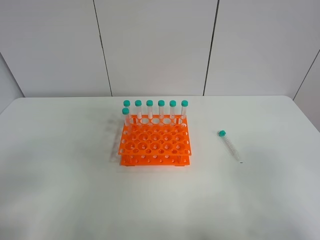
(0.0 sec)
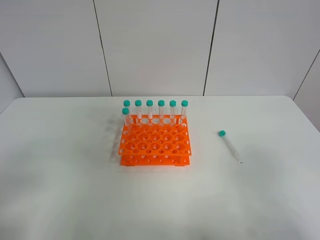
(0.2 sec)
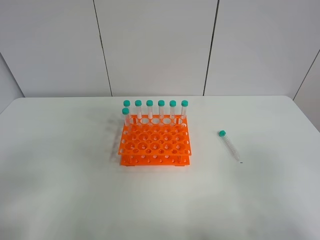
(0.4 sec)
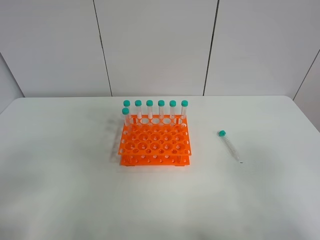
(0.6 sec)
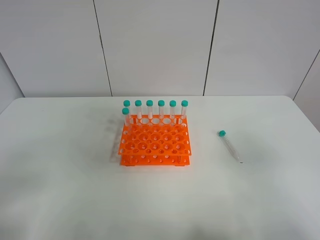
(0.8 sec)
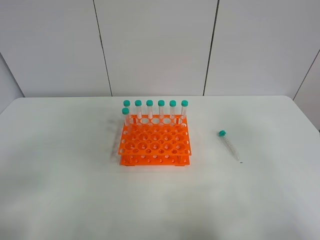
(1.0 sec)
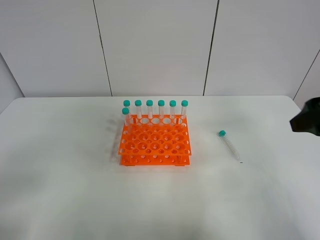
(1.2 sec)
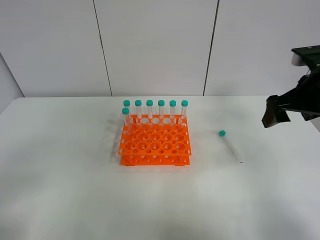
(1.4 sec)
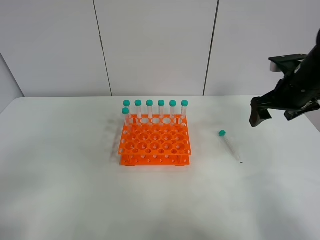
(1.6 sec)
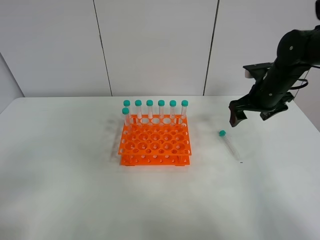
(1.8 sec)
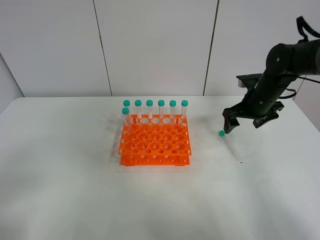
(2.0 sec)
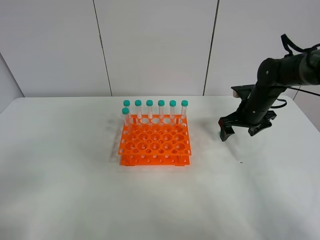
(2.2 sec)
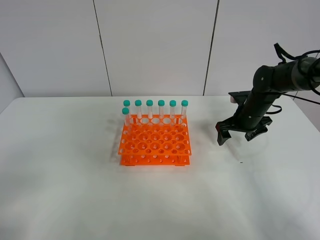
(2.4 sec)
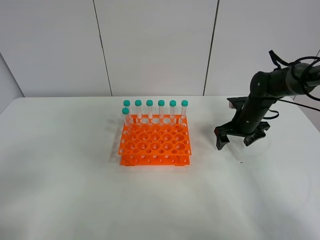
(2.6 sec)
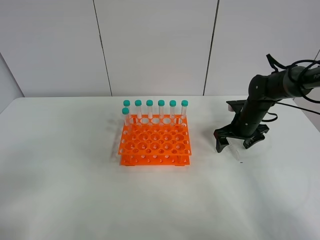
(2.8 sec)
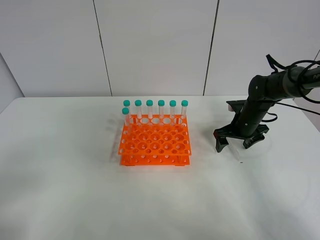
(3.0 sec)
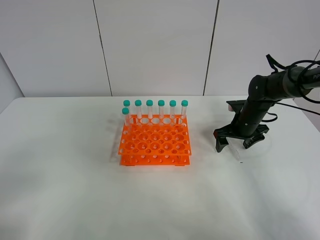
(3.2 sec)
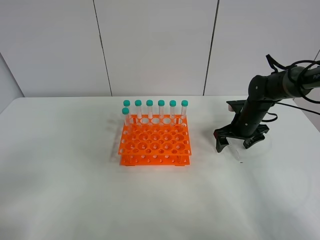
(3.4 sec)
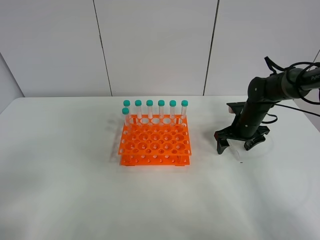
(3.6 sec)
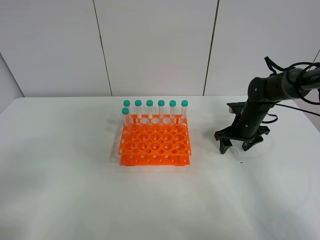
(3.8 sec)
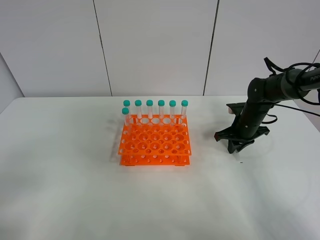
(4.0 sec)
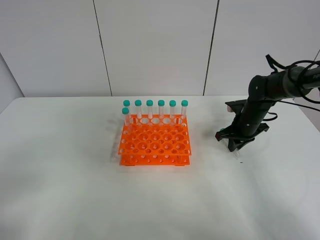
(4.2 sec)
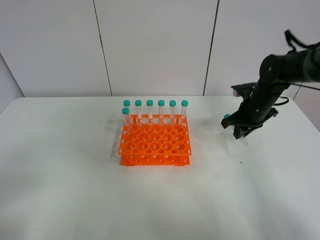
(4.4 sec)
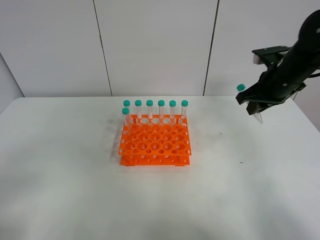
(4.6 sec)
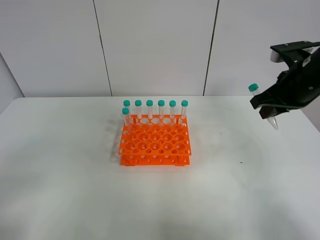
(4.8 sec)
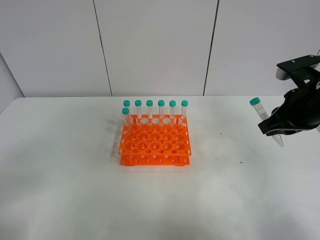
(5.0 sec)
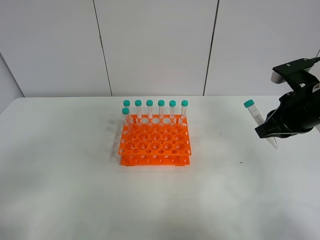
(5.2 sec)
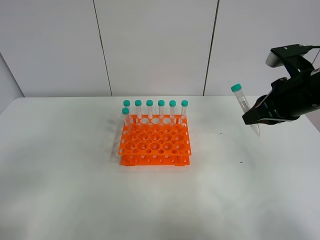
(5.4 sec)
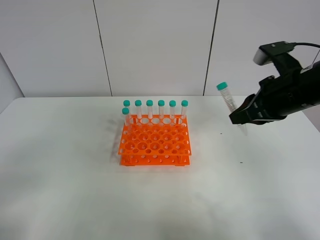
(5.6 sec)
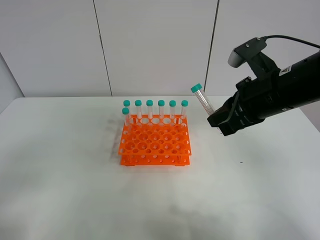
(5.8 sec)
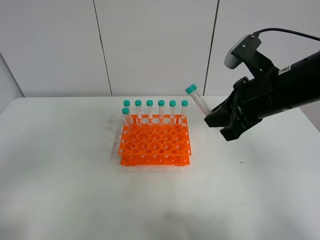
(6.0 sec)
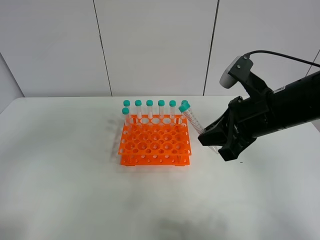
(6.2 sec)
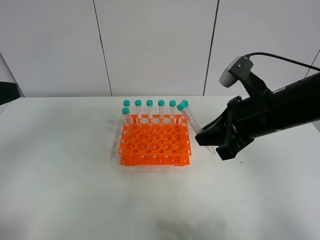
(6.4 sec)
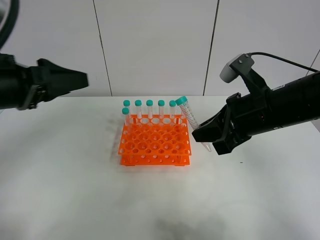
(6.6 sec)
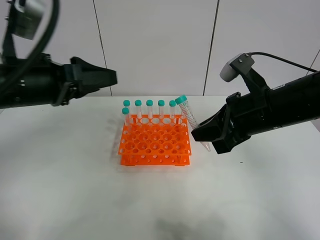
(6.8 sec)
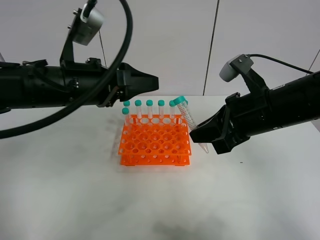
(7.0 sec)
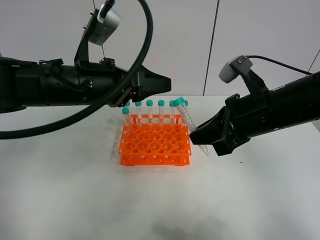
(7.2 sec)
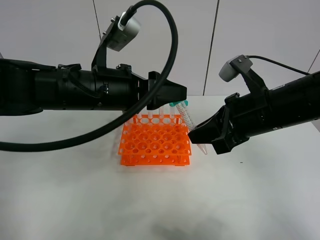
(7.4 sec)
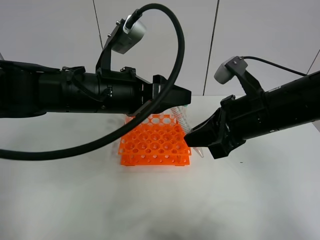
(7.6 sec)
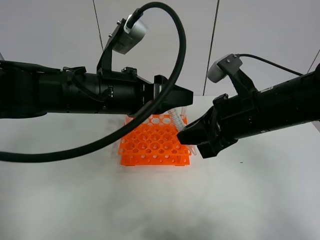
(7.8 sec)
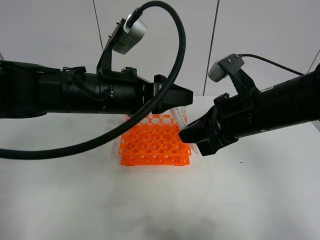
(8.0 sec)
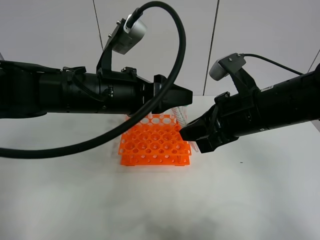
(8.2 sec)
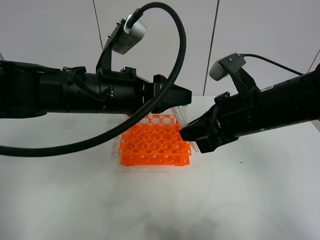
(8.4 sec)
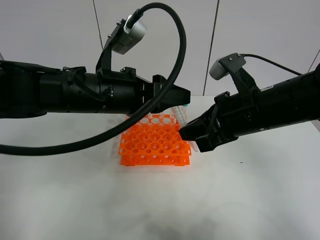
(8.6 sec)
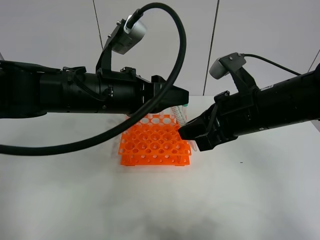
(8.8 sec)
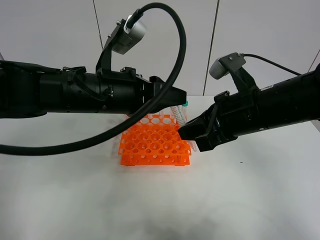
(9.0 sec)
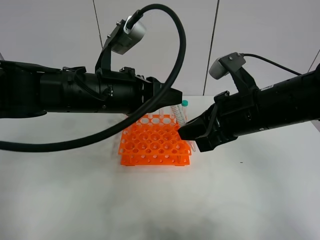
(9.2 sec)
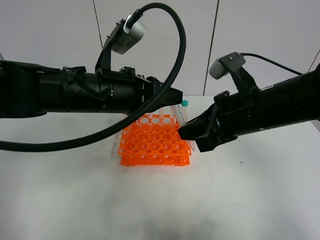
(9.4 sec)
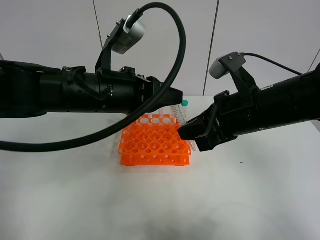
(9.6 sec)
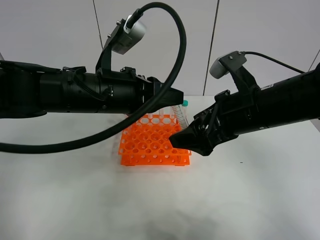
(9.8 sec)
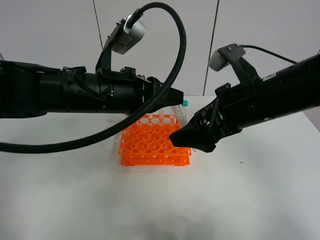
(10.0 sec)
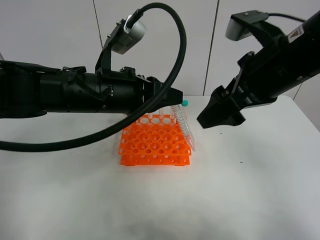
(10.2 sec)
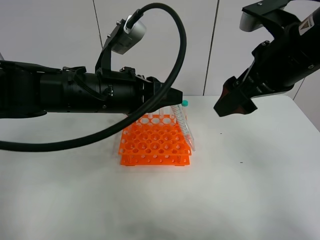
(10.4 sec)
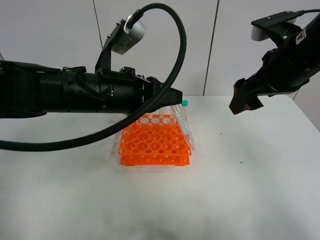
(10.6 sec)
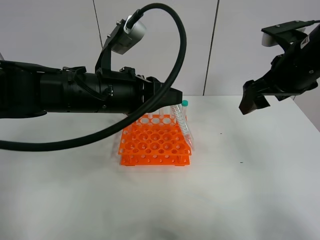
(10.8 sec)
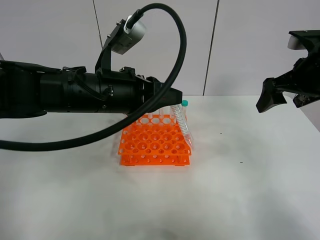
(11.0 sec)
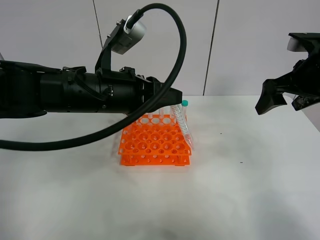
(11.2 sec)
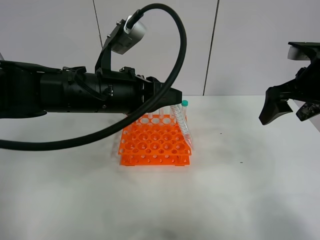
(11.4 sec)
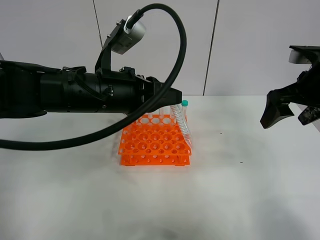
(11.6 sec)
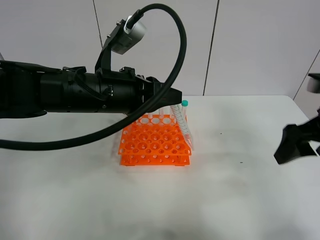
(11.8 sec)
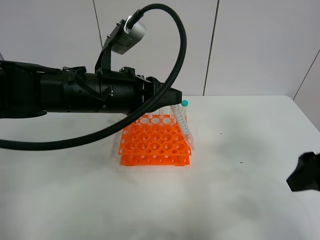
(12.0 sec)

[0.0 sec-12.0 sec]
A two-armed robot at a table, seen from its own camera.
Task of the whole recording: Put the test tube on the table back onto the test tube rack.
Step, 0.0 sec to 4.0 sec: Pick up the test tube with the right gripper.
Step, 4.2 sec to 10.0 sec: Move the test tube from the right gripper to the left gripper.
0.0 sec to 1.6 sec: The right gripper is displaced forward by about 35 cm.
1.6 sec to 3.0 sec: The right gripper is displaced downward and forward by approximately 15 cm.
3.0 sec to 4.4 sec: The right gripper shifts approximately 5 cm upward, and closes.
4.4 sec to 6.0 sec: The right gripper shifts approximately 20 cm backward, upward and to the left.
6.0 sec to 7.6 sec: The left gripper shifts about 30 cm forward and to the right.
7.6 sec to 9.0 sec: The left gripper closes its fingers.
9.0 sec to 10.4 sec: The right gripper heads upward, covering roughly 10 cm, and opens its fingers. Meanwhile the left gripper closes up.
10.4 sec to 12.0 sec: The right gripper travels backward, to the right and downward by approximately 15 cm.

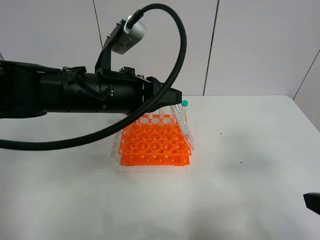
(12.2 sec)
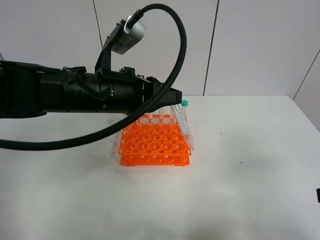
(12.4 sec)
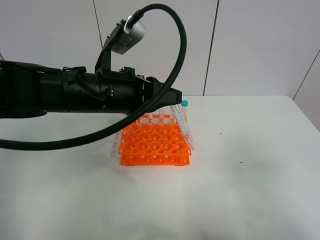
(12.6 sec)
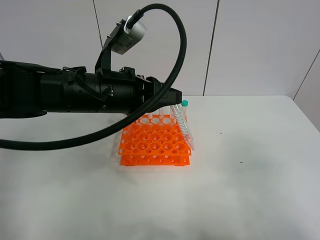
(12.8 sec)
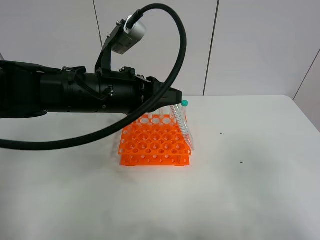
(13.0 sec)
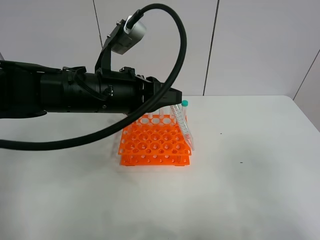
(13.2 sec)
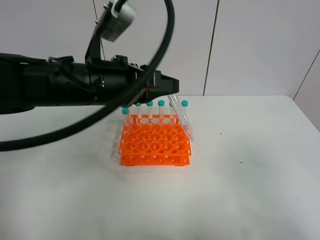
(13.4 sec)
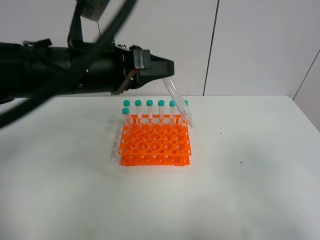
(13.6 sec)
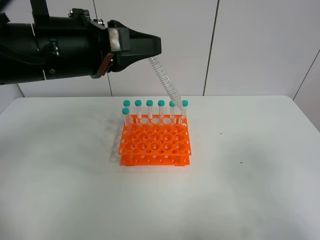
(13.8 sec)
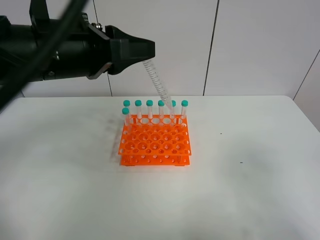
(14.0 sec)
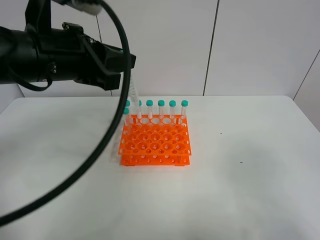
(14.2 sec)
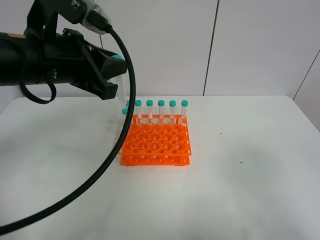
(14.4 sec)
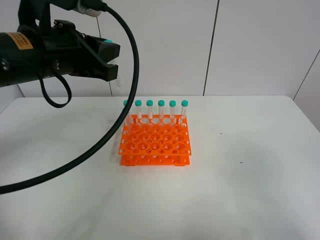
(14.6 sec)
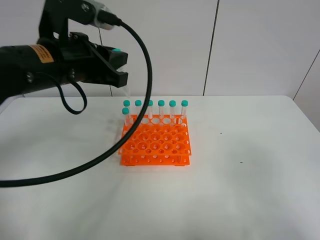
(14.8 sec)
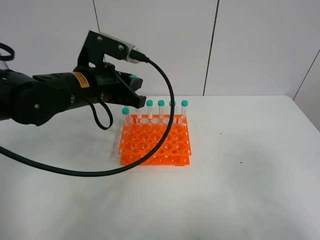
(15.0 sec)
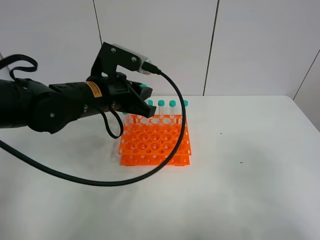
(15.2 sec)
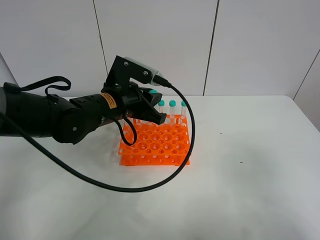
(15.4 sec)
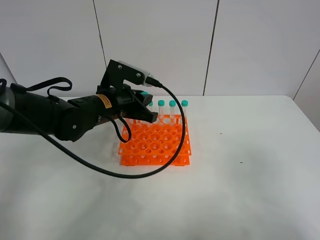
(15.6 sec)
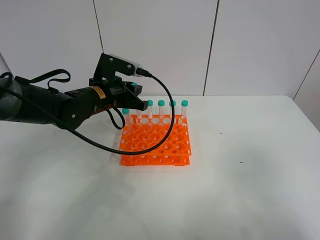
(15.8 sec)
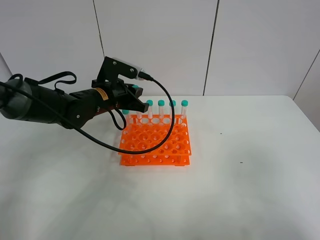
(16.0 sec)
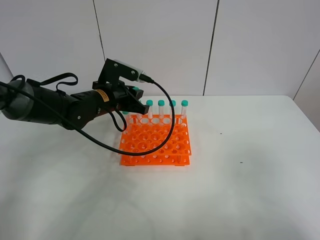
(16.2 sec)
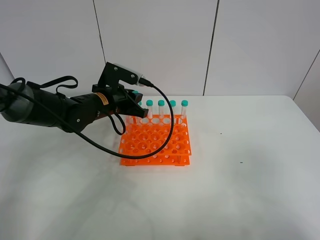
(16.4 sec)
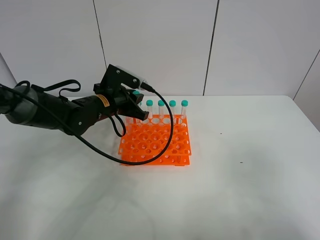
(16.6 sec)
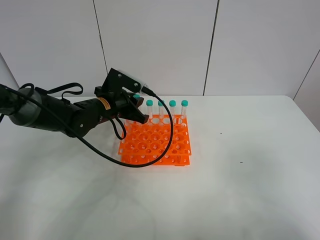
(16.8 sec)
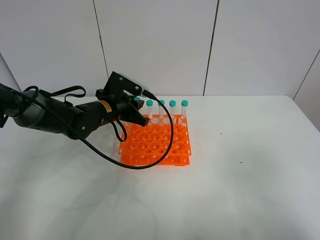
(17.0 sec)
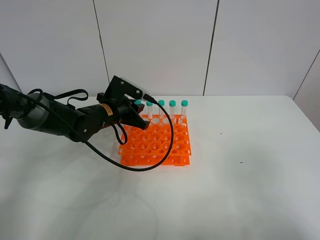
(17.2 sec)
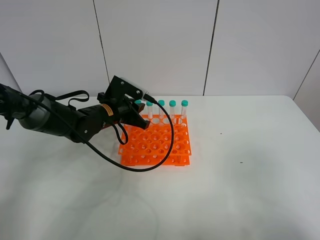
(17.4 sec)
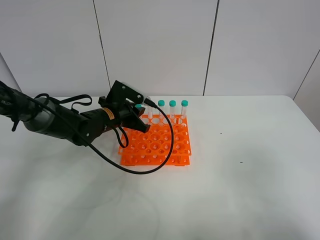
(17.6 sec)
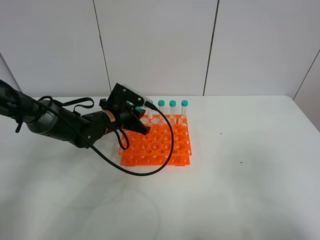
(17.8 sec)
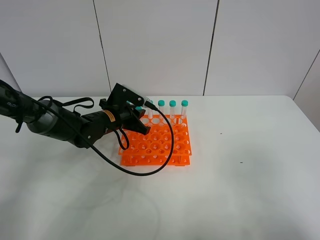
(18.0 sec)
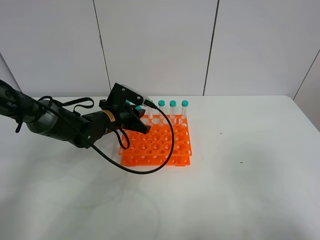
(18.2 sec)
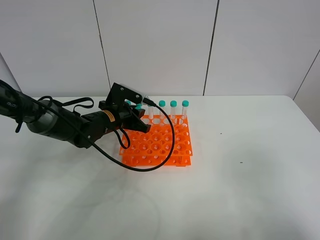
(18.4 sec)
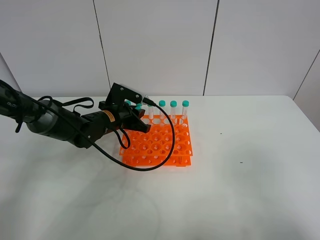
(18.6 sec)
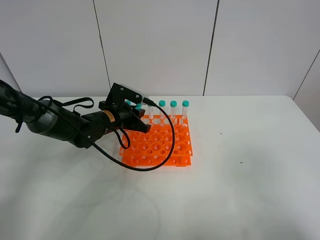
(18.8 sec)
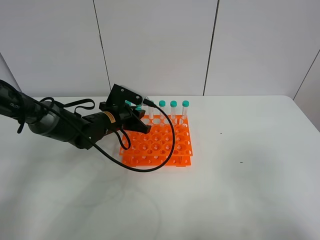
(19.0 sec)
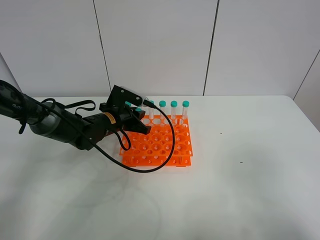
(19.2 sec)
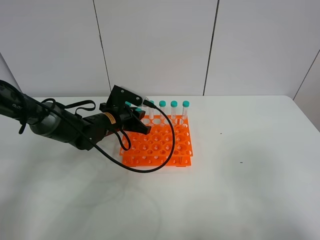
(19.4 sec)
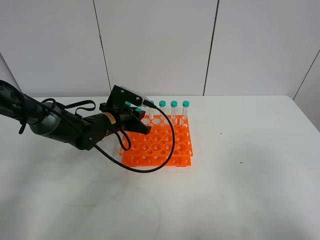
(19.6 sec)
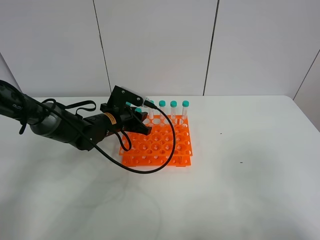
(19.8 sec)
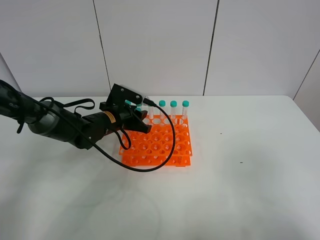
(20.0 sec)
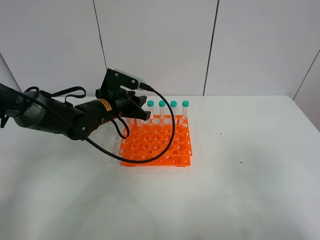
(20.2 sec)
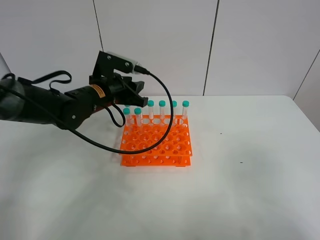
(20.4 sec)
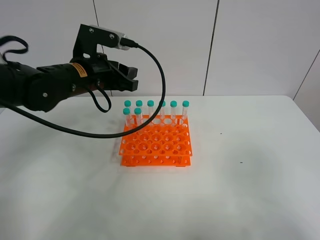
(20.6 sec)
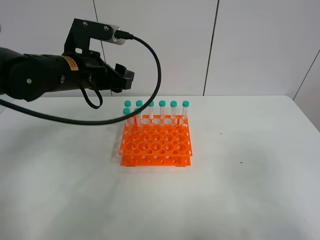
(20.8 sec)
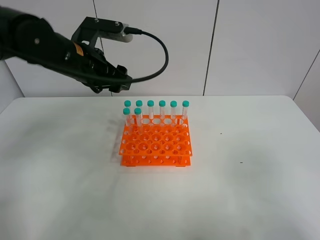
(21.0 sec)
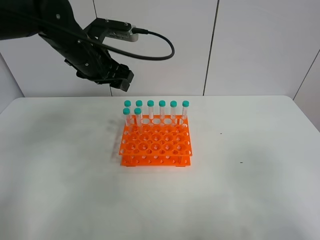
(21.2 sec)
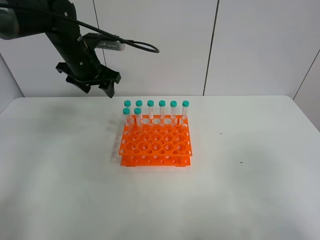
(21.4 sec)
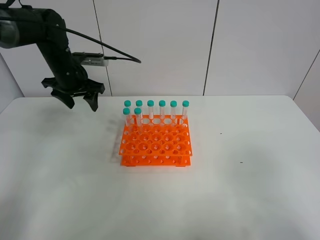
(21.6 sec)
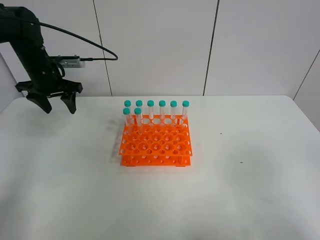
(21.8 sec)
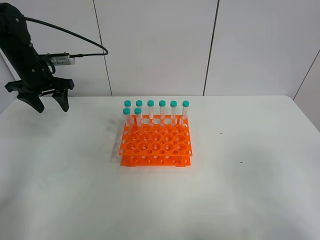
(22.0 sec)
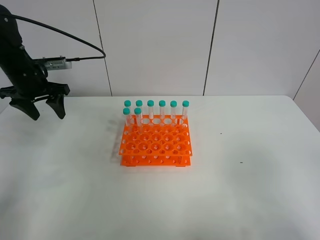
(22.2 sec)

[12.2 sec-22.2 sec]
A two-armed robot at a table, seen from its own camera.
Task of the whole recording: Put the test tube on the table back onto the test tube rack.
Step, 12.2 sec to 19.8 sec: Place the test tube on the test tube rack with the left gripper.
12.2 sec to 13.6 sec: The left gripper travels upward by some 5 cm, while the right gripper travels backward by approximately 5 cm.
13.6 sec to 15.0 sec: The left gripper moves downward and forward, roughly 10 cm.
15.0 sec to 16.4 sec: The left gripper goes roughly 10 cm downward and forward.
16.4 sec to 18.0 sec: The left gripper goes some 5 cm downward.
18.0 sec to 19.4 sec: There are only small adjustments of the grippers.
19.4 sec to 20.8 sec: The left gripper travels upward by about 15 cm, and opens.
20.8 sec to 22.2 sec: The left gripper heads to the left and forward, covering some 15 cm.
